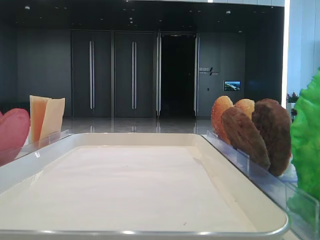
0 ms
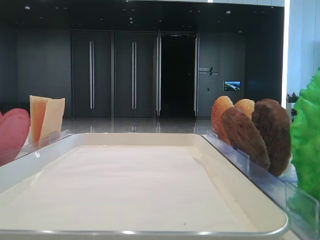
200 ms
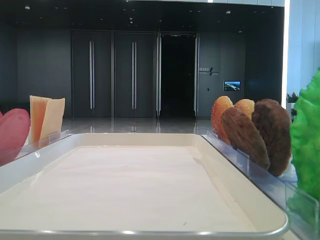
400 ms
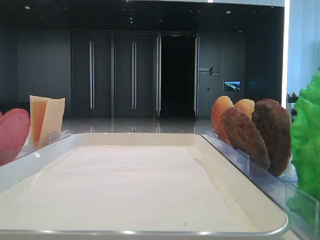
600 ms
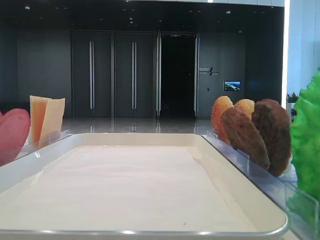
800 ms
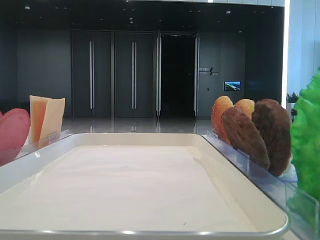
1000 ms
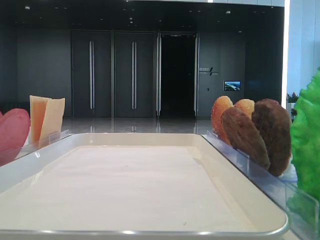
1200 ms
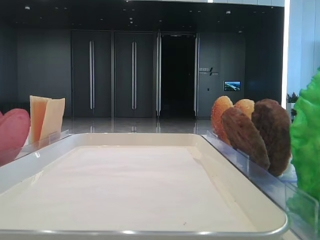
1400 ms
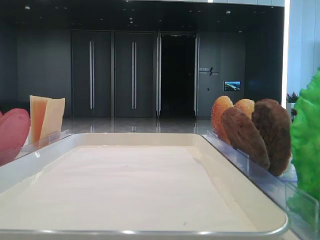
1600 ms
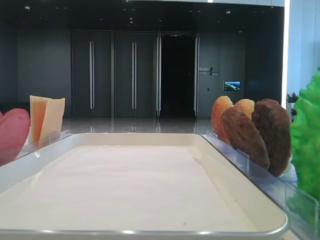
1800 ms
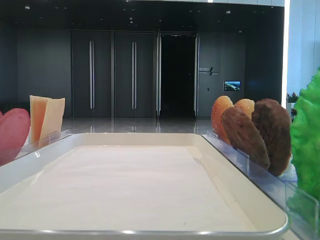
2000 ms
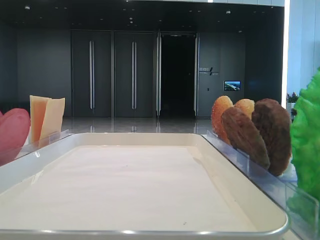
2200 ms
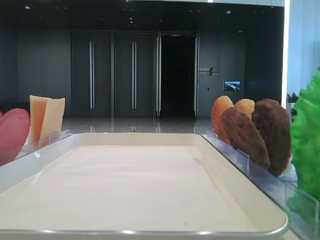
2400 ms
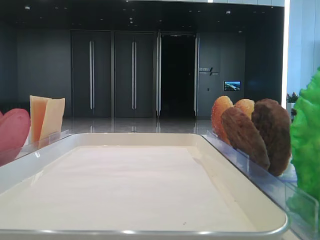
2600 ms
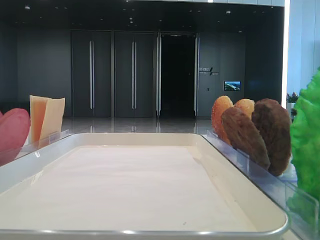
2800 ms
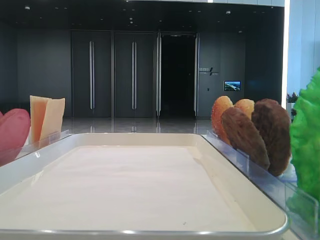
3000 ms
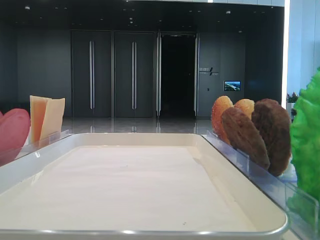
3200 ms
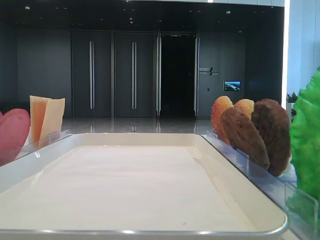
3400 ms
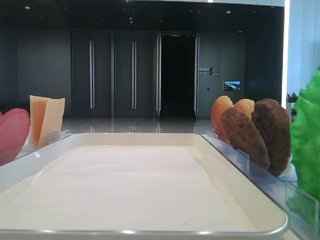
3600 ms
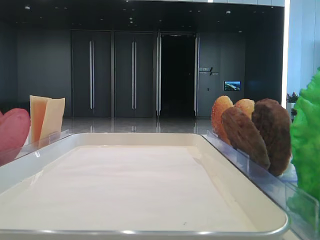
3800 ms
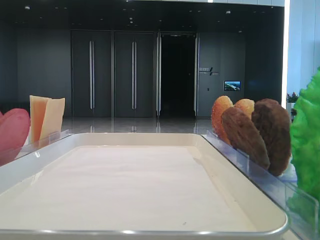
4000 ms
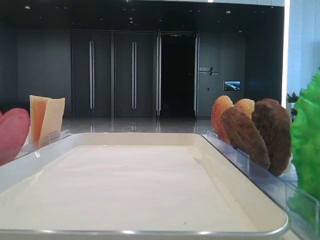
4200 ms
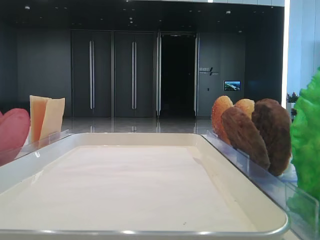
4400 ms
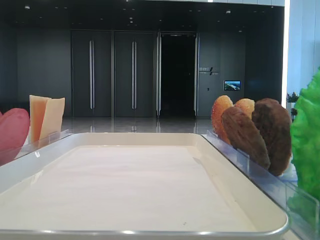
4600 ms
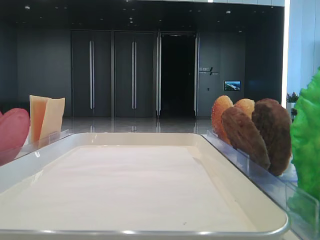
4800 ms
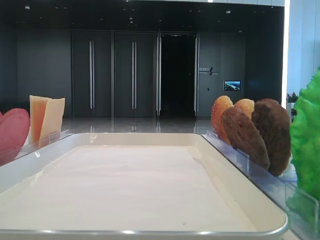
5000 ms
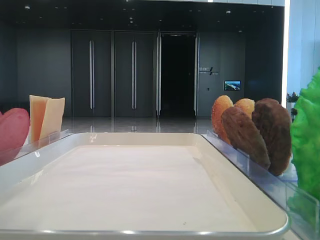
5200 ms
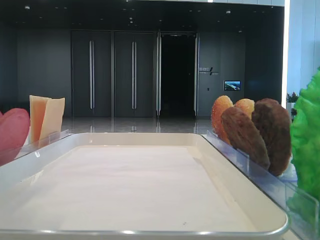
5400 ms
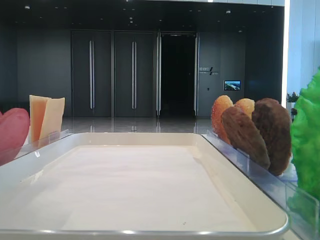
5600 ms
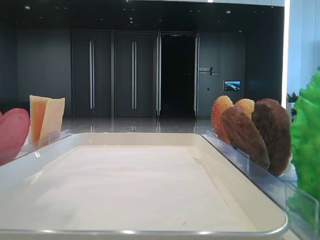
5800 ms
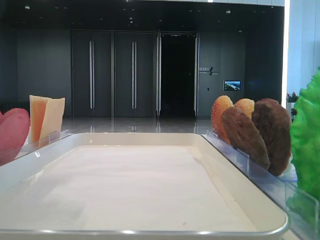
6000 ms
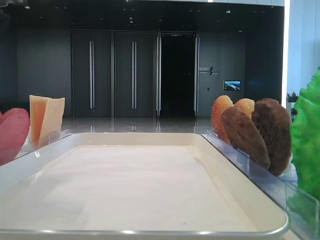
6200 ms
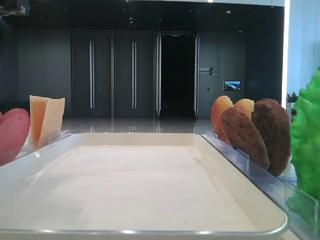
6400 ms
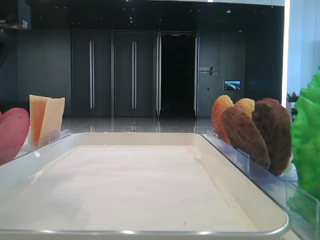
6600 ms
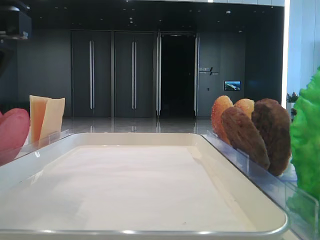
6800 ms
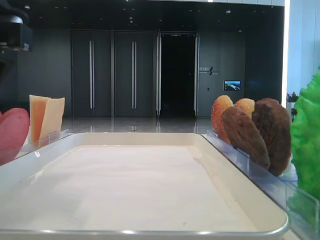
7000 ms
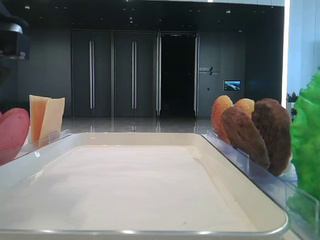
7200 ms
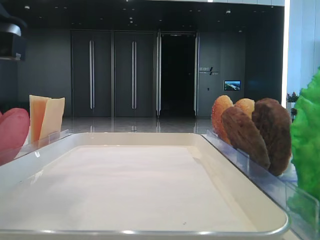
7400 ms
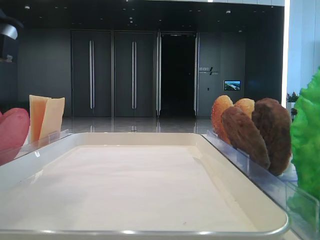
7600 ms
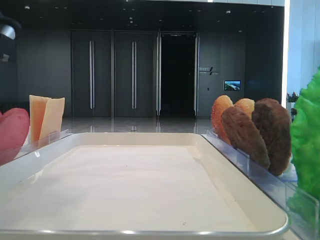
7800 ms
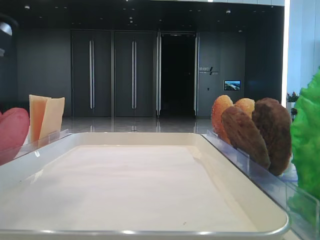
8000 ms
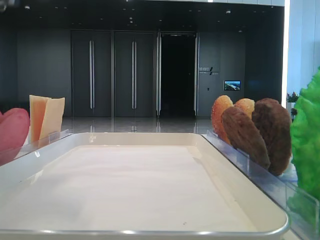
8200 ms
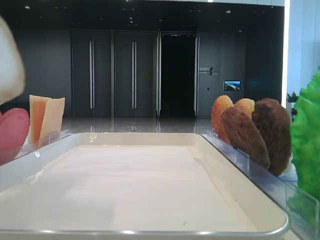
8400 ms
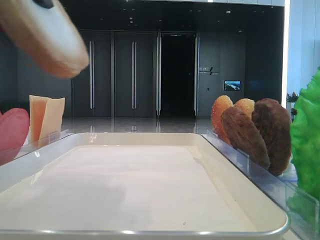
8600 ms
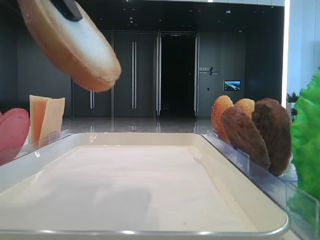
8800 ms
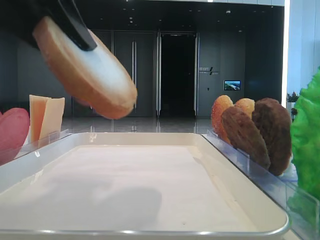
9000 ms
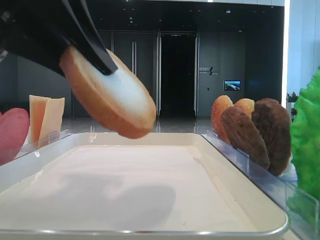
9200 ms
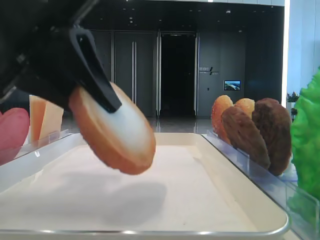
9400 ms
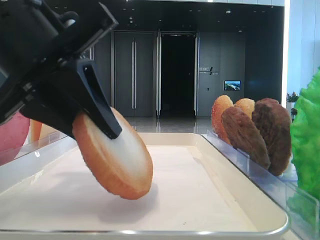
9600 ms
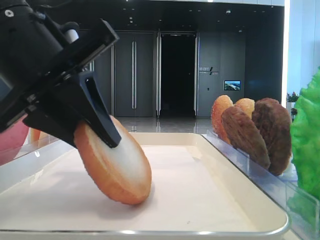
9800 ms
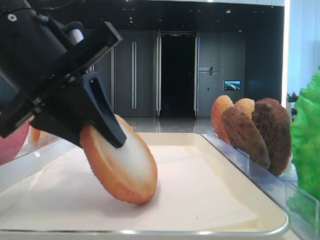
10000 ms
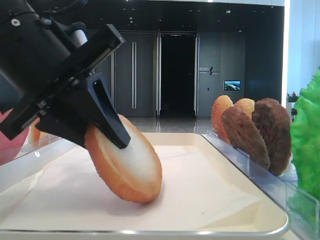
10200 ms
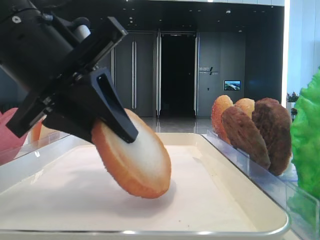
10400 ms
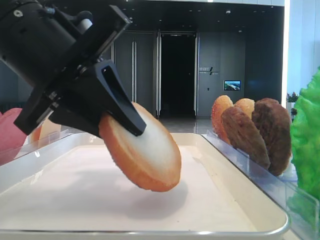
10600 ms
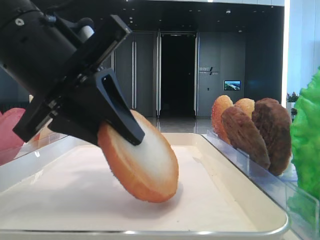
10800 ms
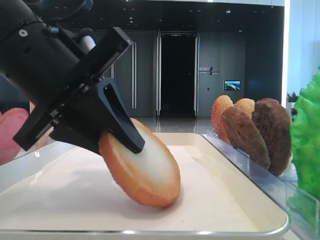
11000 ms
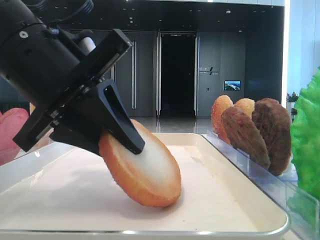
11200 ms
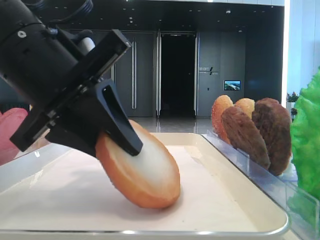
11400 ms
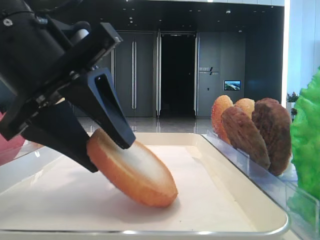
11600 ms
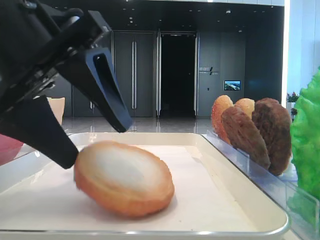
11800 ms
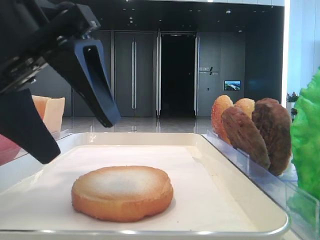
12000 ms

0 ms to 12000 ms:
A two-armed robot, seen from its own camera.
Step, 0 ms to 7800 ms: Pick up the bottom bread with the left hand.
Step, 8000 ms to 11800 ms: Place the bread on the tray with the left hand.
4400 ms to 6000 ms: The left gripper is displaced to the right and downward by some 15 cm.
9000 ms to 10400 ms: The left gripper shifts approximately 10 cm downward.
10400 ms to 12000 ms: The left gripper opens up.

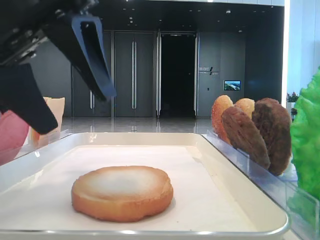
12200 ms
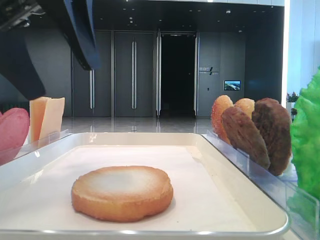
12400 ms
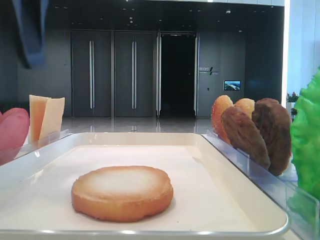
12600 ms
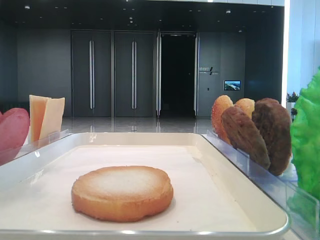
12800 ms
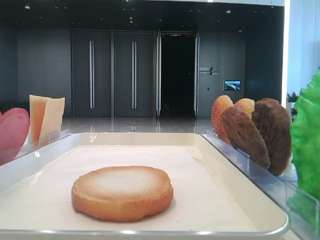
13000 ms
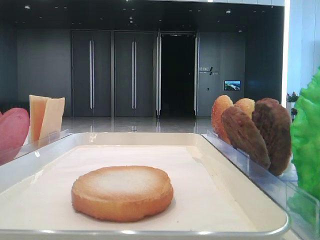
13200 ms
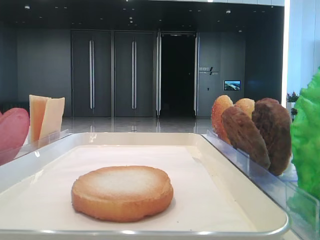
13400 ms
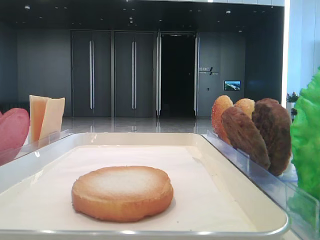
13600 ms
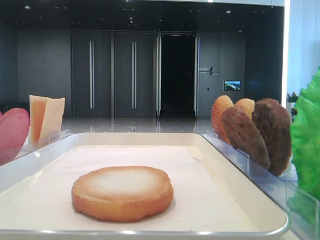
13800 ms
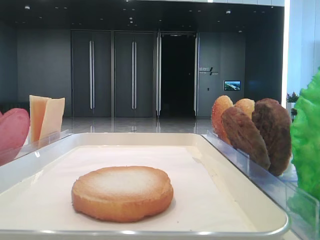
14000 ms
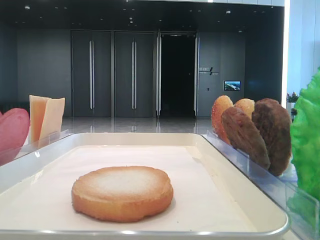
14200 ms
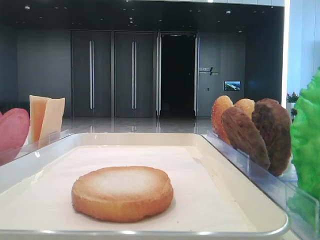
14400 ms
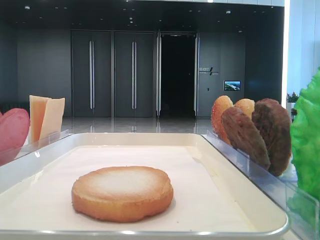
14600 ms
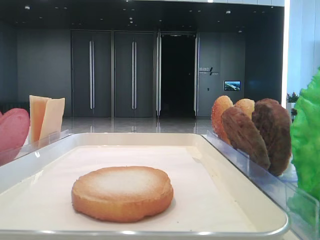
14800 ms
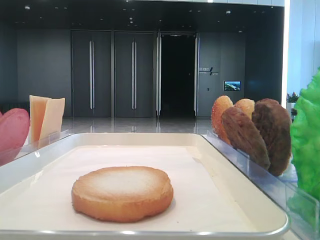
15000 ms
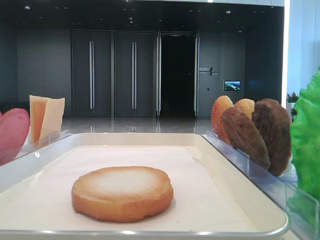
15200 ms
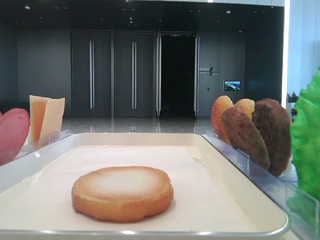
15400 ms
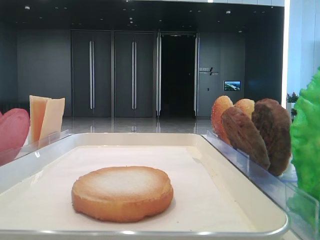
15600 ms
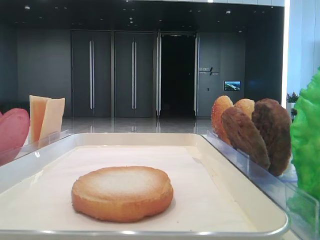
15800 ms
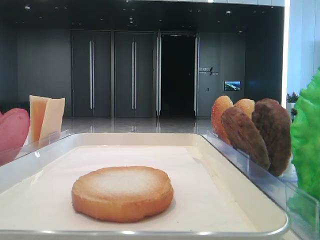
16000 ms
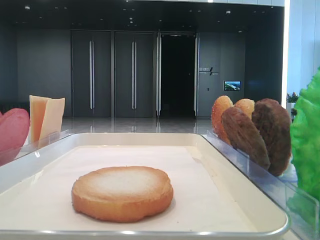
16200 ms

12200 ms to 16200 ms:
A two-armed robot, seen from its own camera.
12200 ms to 13600 ms: The left gripper shifts approximately 15 cm to the left.
